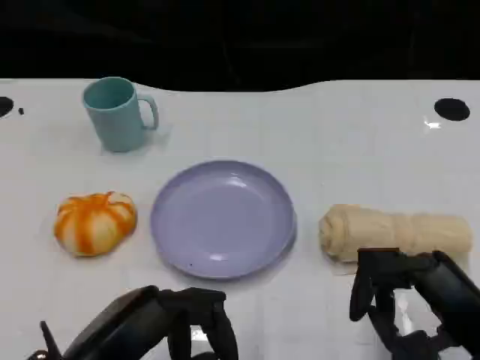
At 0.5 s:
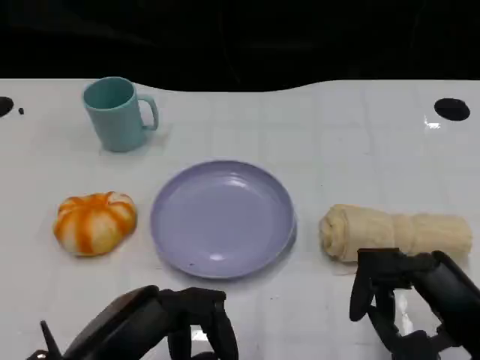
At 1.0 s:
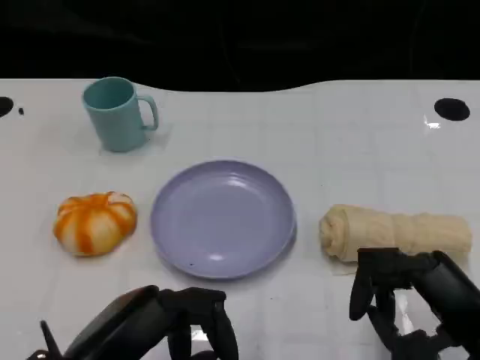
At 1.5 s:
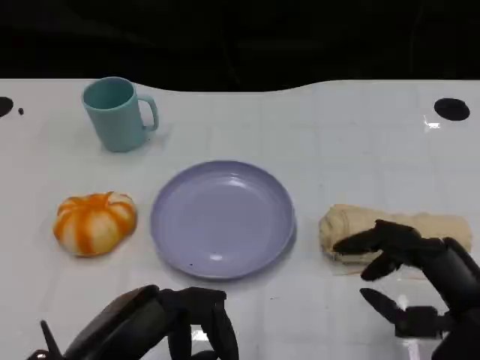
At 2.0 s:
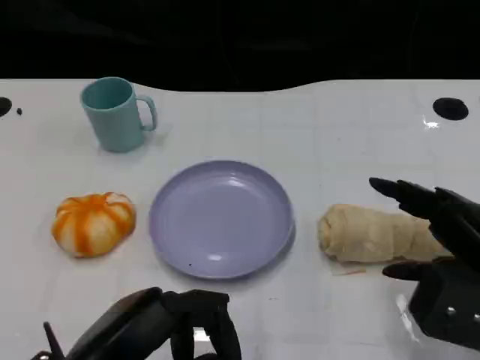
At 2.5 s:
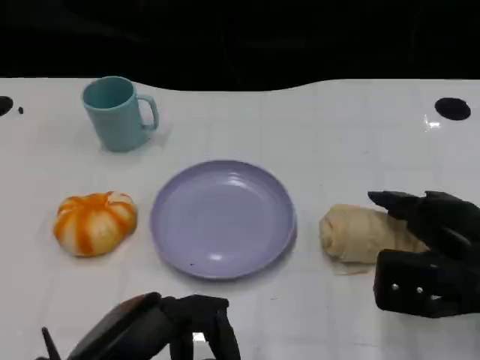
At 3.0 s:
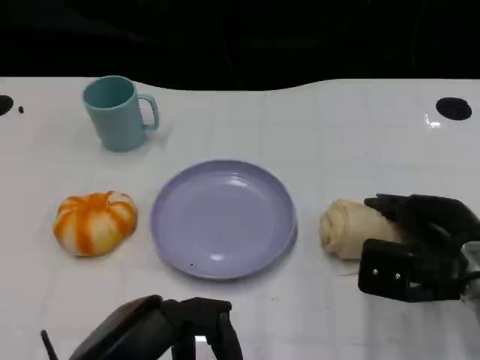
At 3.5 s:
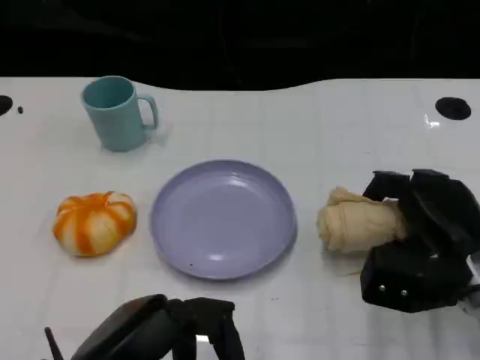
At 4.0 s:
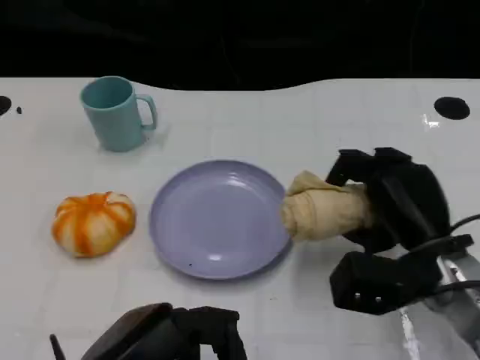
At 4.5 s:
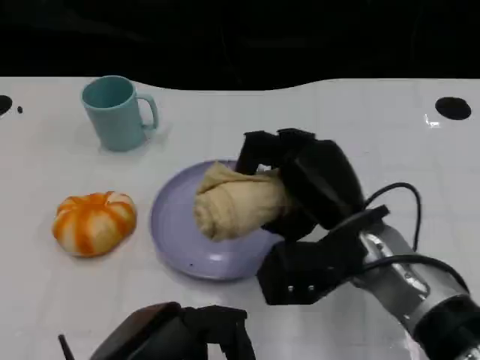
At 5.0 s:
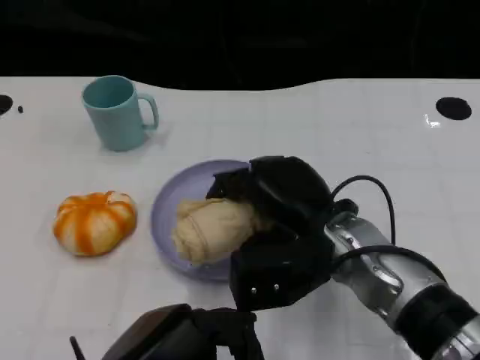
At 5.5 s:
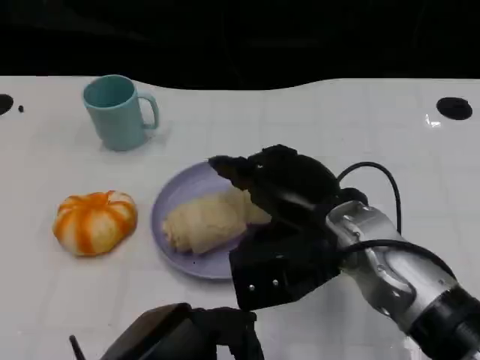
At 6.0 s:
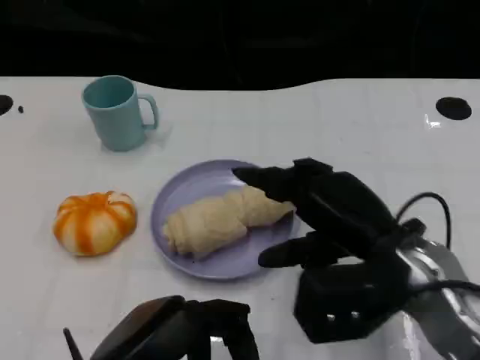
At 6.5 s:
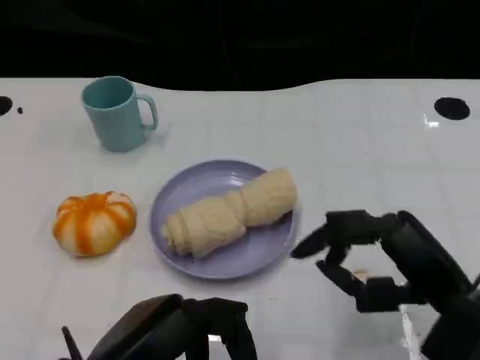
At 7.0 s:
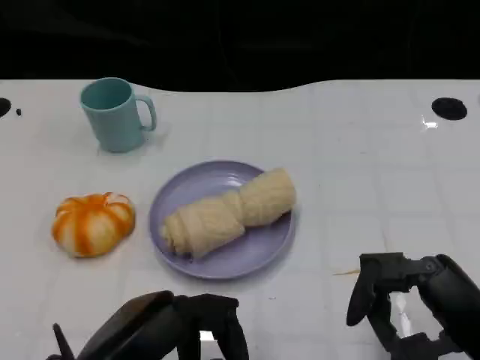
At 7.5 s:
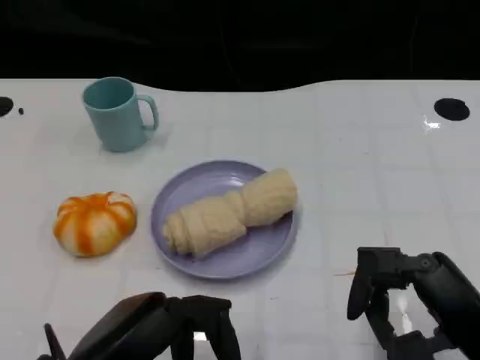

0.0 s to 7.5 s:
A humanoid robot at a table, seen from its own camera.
Task of the whole recording: Grasp the towel on the left side of the plate with the left hand and place it into the plate.
0.0 to 2.0 s: The right hand changes place by some 5 cm.
2.0 to 4.0 s: The right hand heads to the left, forward and downward, covering roughly 10 cm.
4.0 to 5.5 s: The right hand is displaced to the left and upward by about 10 cm.
5.5 to 7.5 s: The right hand is displaced to the right and backward by roughly 15 cm.

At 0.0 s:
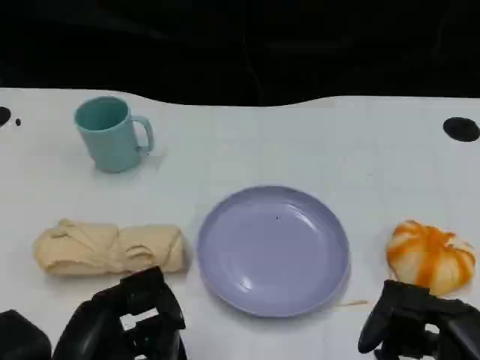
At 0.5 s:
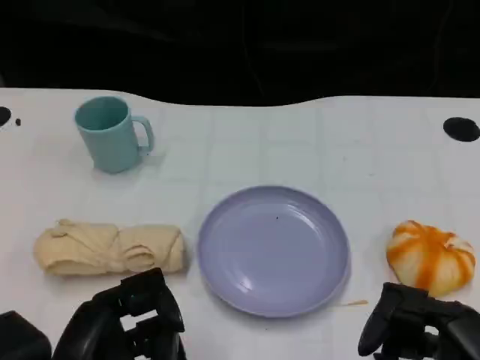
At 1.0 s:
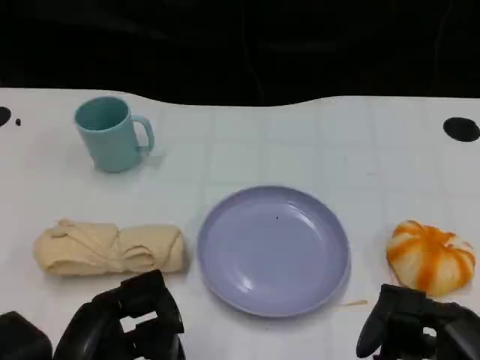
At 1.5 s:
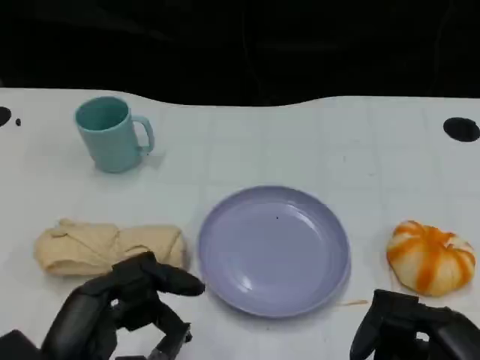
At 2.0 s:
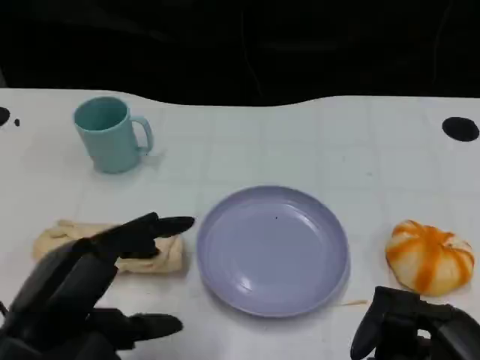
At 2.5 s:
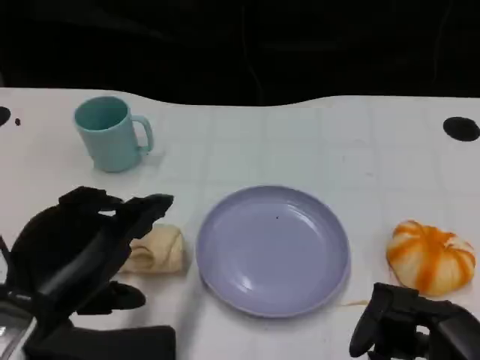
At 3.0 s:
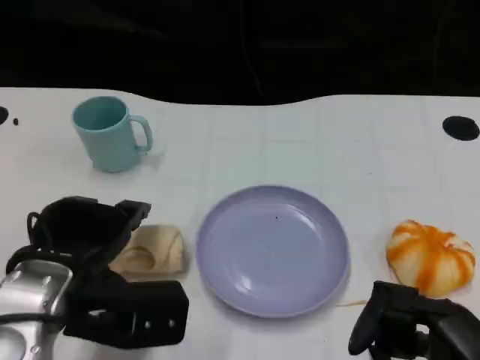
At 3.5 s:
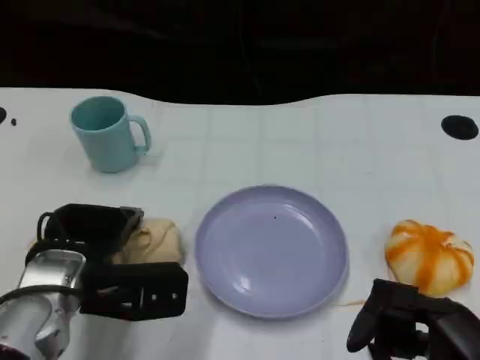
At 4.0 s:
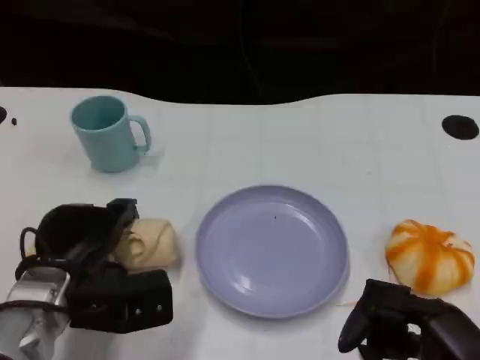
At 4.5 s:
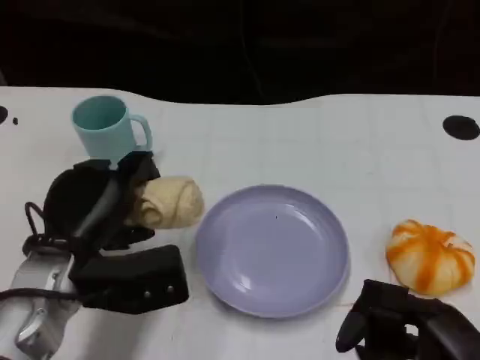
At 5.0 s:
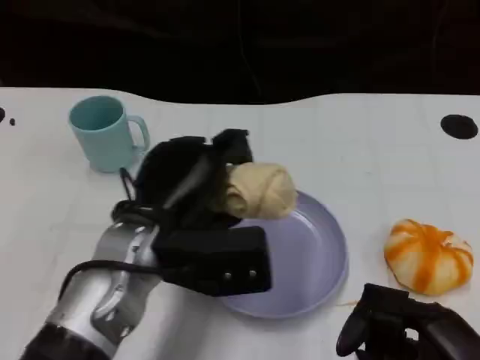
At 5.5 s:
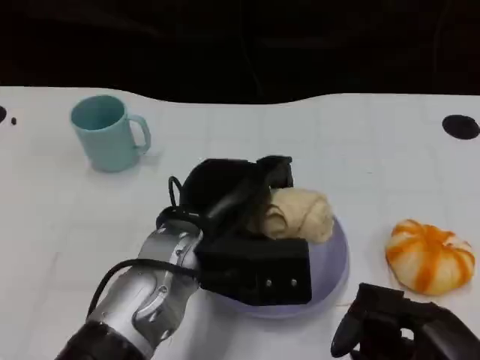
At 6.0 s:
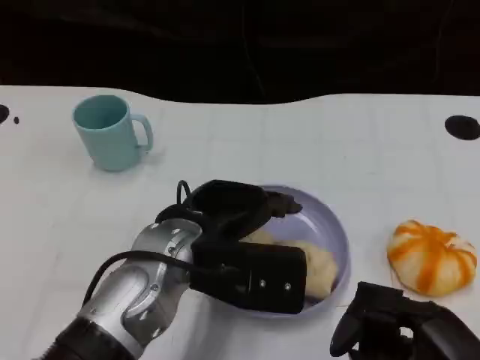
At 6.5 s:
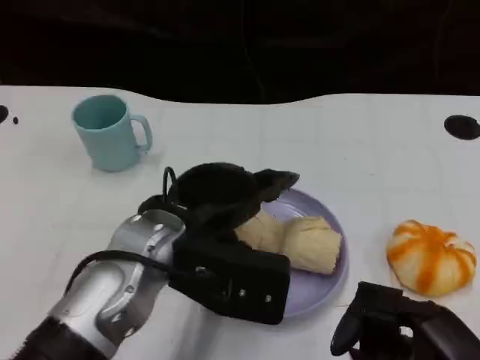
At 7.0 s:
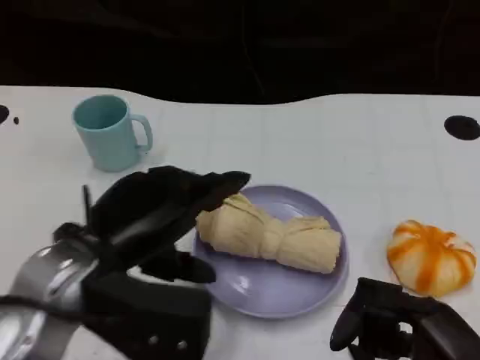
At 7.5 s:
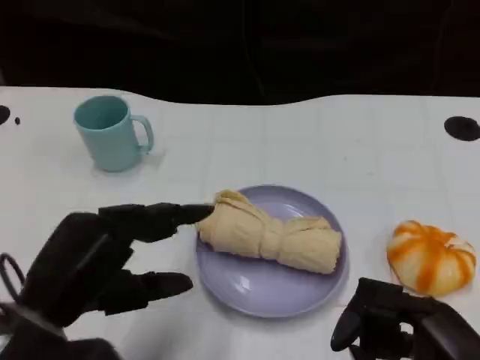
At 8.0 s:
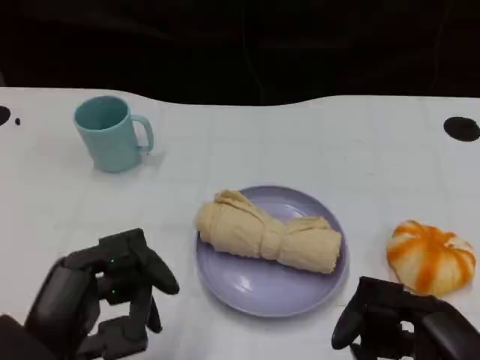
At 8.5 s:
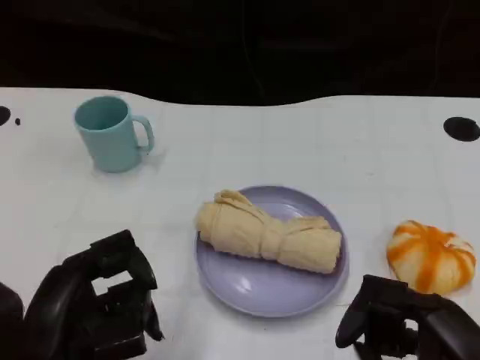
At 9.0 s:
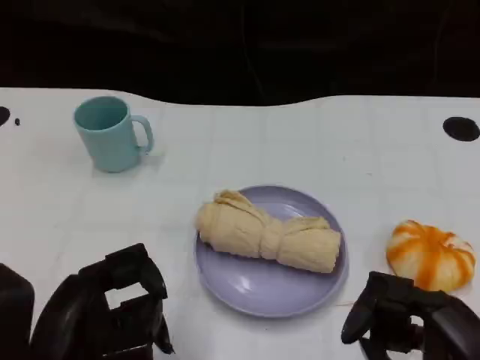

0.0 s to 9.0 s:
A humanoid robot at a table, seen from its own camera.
Task of the whole recording: Grasp the towel on the left side of the plate with the left hand and place it into the plate.
0.0 to 2.0 s: The left hand shifts by roughly 5 cm.
2.0 to 4.5 s: The left hand heads forward and downward, covering some 15 cm.
4.5 to 7.0 s: The left hand heads upward, covering about 5 cm, and moves some 10 cm to the right and comes back.
7.0 to 9.0 s: The left hand goes approximately 10 cm backward.

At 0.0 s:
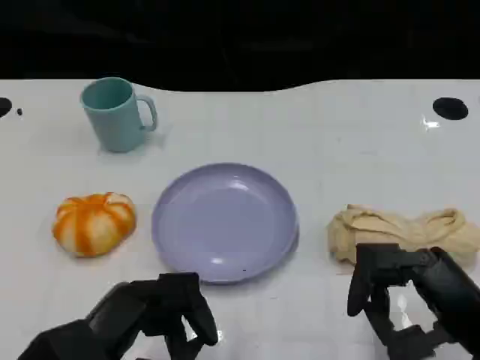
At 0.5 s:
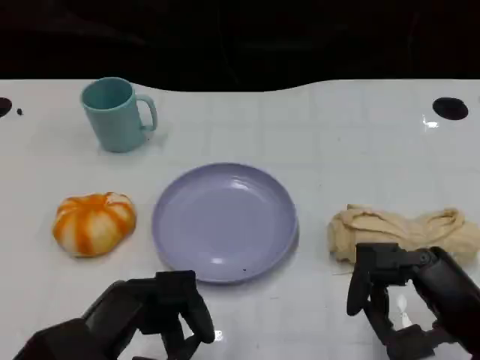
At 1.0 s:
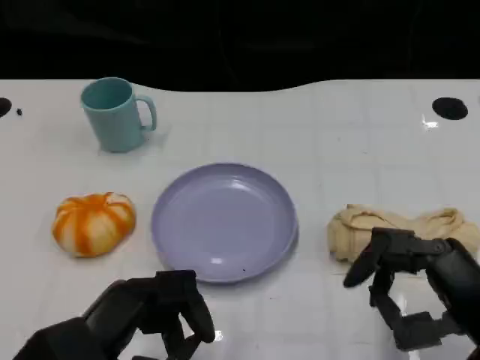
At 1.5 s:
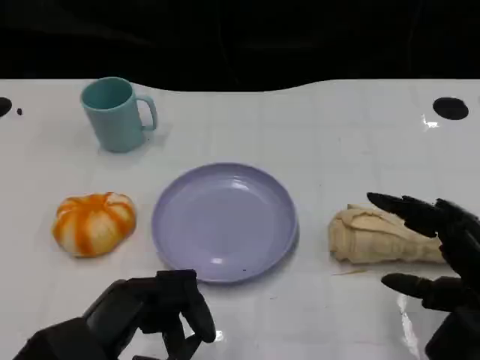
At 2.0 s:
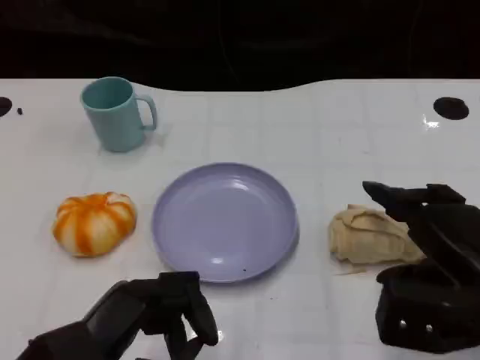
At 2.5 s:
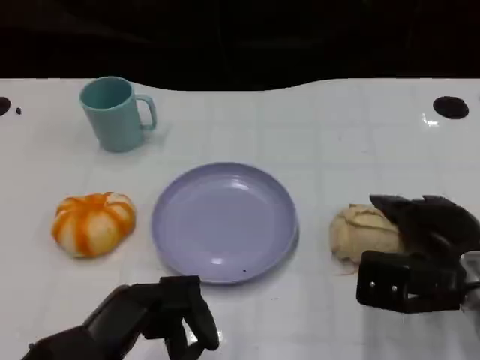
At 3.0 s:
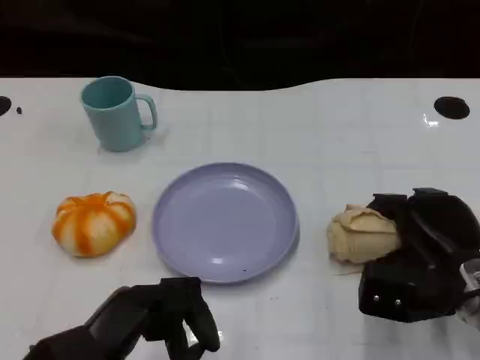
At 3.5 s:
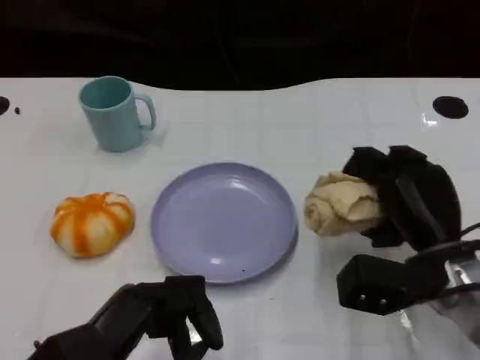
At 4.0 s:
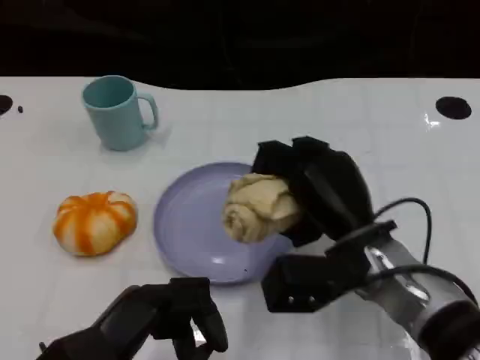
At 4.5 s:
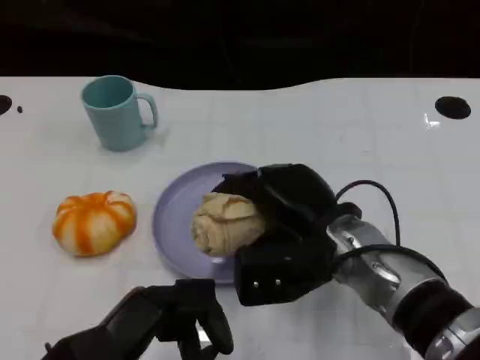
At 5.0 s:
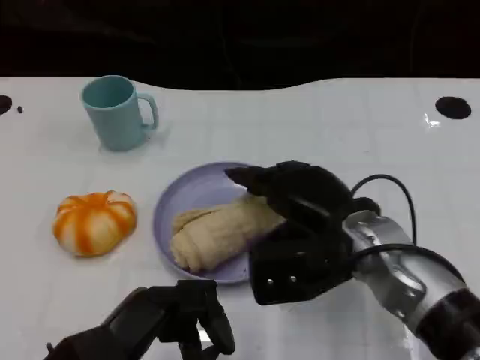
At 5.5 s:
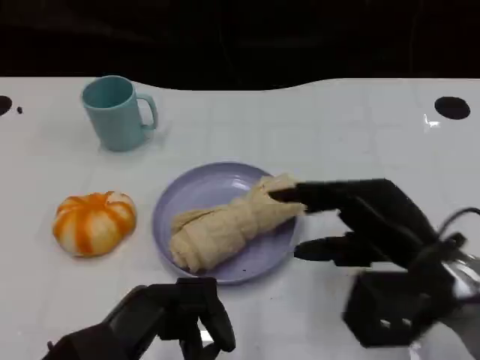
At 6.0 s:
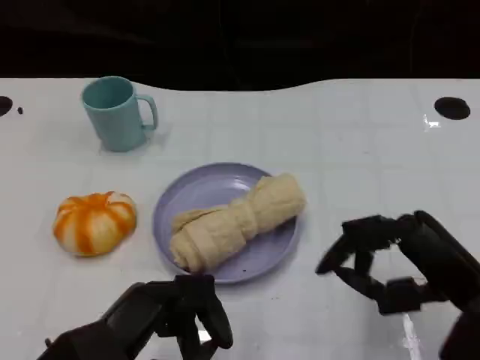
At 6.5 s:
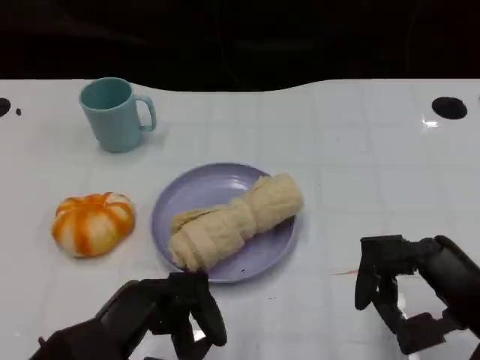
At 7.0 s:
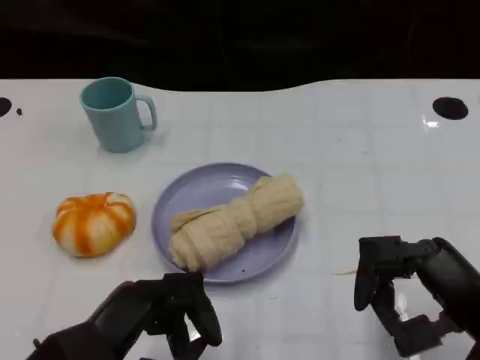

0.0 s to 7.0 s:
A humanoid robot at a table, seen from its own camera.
Task of the whole recording: Grasp the towel on the left side of the plate with the left hand and place it into the plate.
0.0 to 2.0 s: The right hand is displaced forward by roughly 5 cm.
2.0 to 3.5 s: The right hand ends up some 10 cm from where it was.
3.5 to 5.0 s: The right hand shifts roughly 5 cm to the left.
5.0 to 7.0 s: The right hand heads to the right and backward, covering some 15 cm.

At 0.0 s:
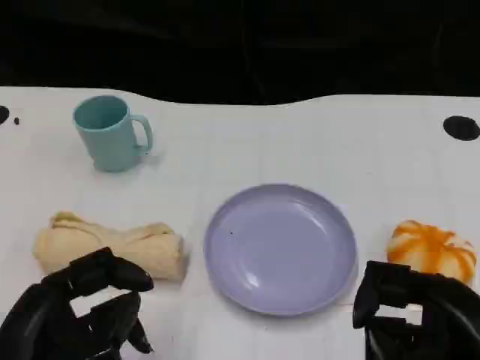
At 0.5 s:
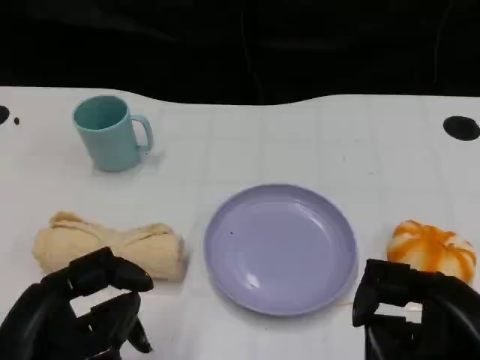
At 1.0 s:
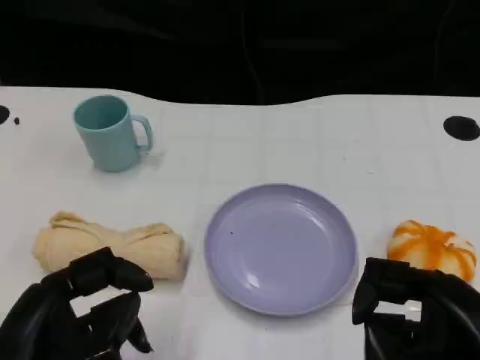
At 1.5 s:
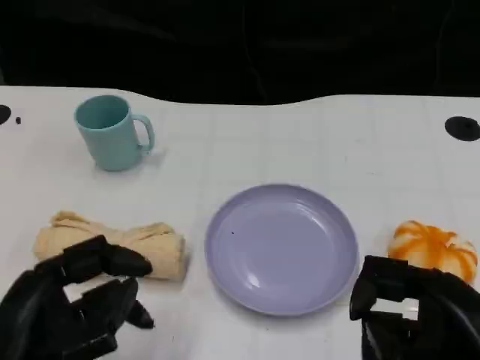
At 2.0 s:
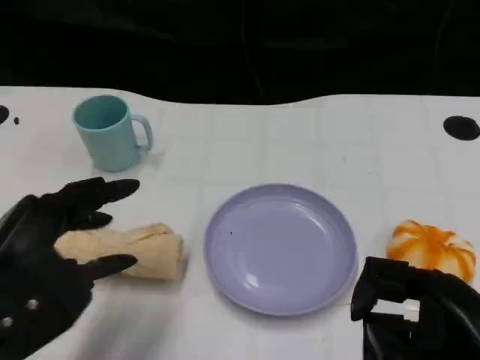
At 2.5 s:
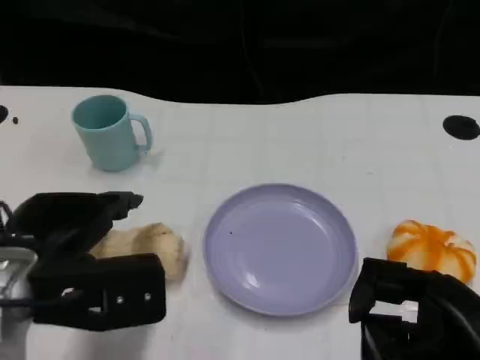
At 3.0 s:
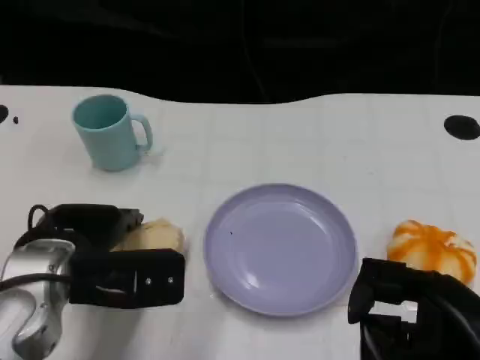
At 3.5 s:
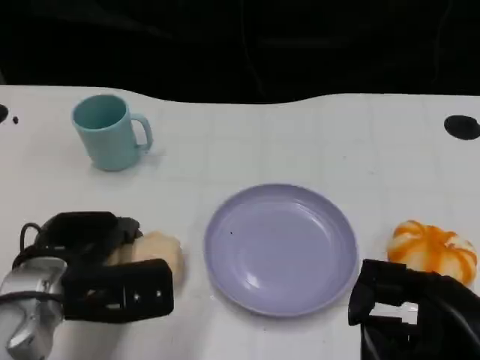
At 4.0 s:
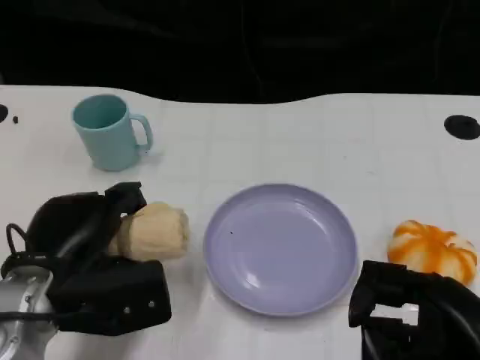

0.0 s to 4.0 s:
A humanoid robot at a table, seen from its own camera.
Task of the whole recording: Grasp the towel on the left side of the plate with the left hand and place it into the plate.
0.0 to 2.0 s: The left hand travels forward by roughly 5 cm.
2.0 to 4.0 s: The left hand heads downward and forward, covering roughly 10 cm.
